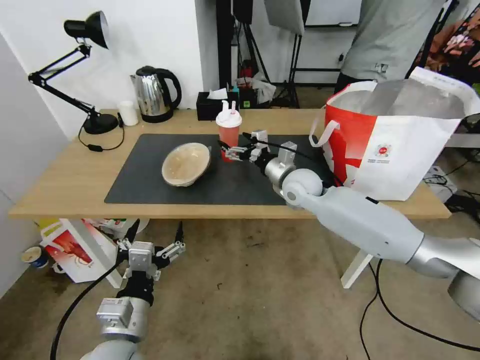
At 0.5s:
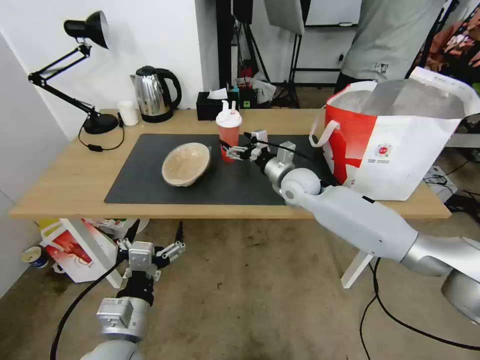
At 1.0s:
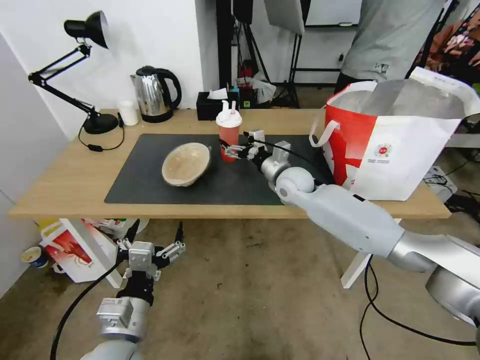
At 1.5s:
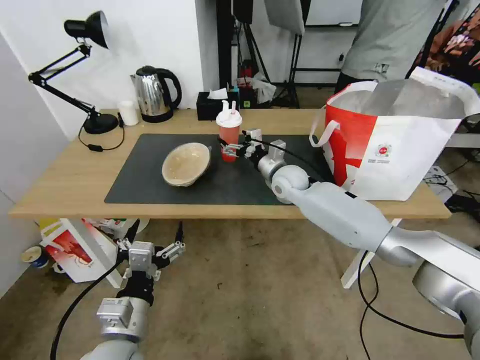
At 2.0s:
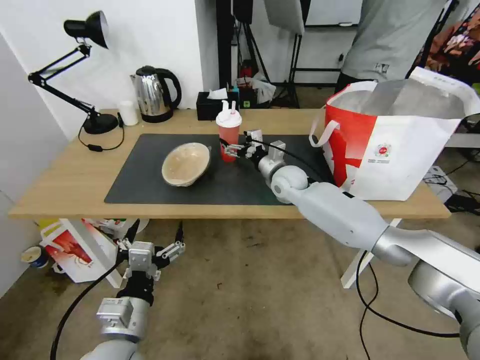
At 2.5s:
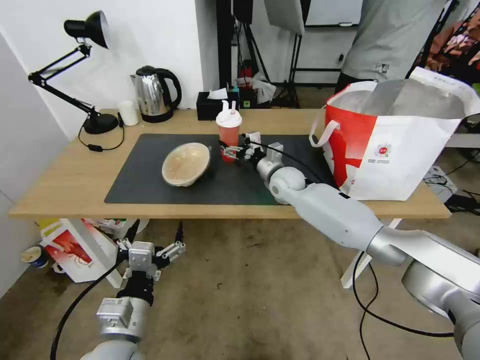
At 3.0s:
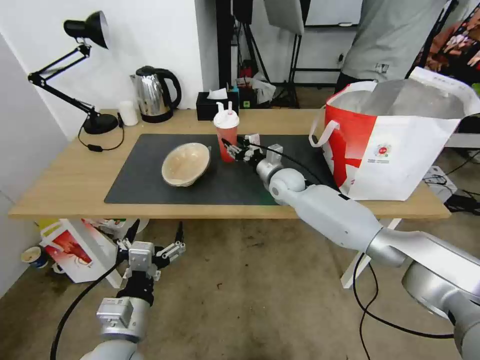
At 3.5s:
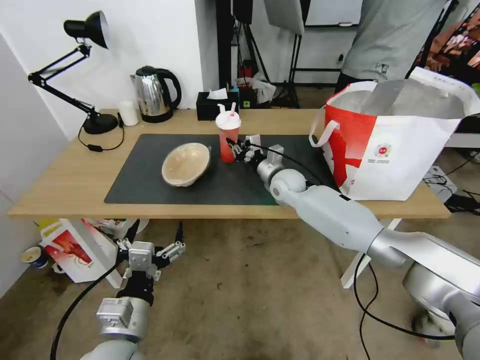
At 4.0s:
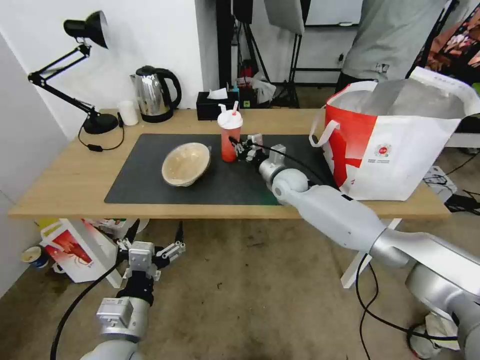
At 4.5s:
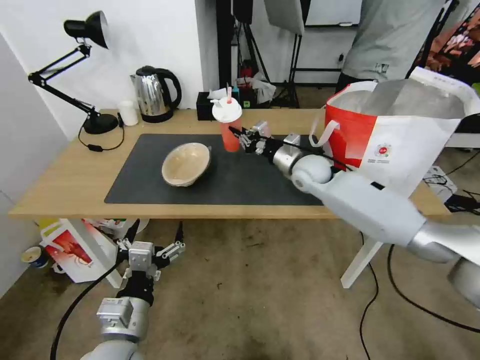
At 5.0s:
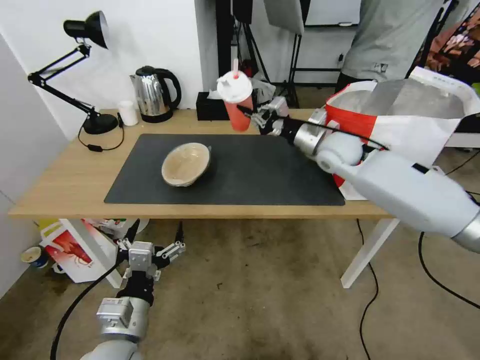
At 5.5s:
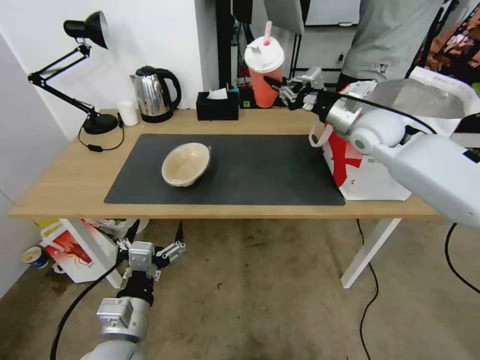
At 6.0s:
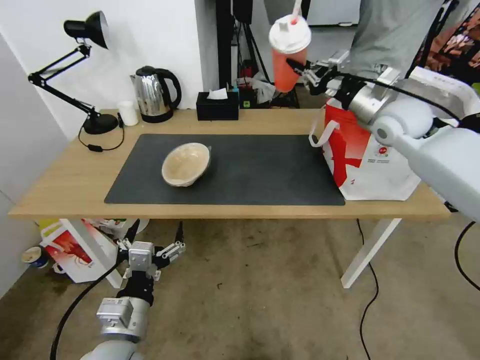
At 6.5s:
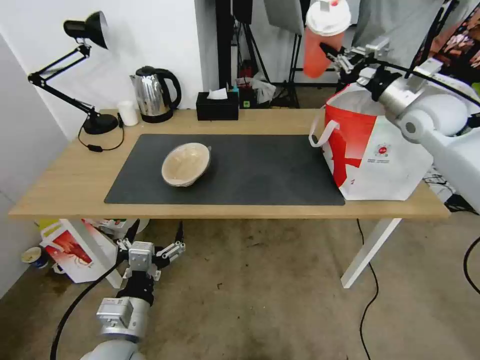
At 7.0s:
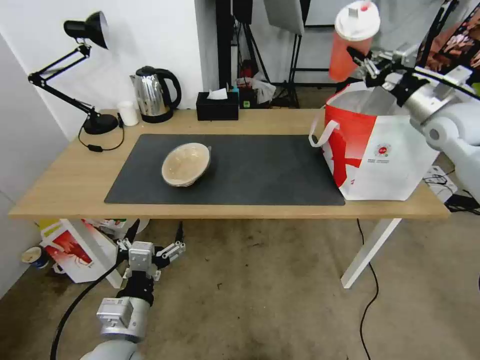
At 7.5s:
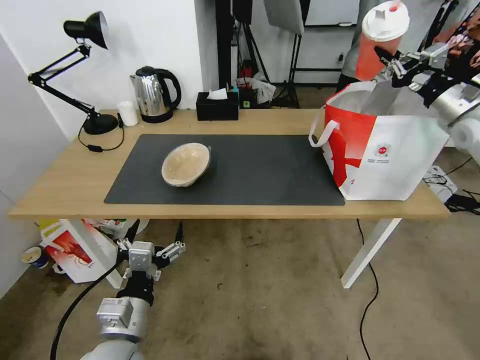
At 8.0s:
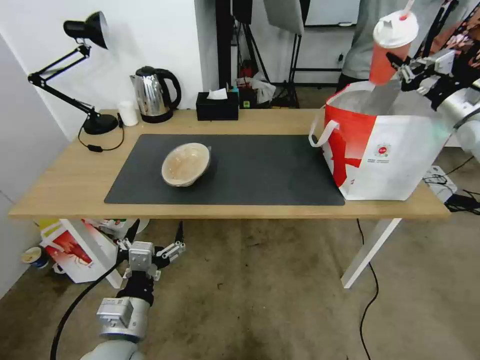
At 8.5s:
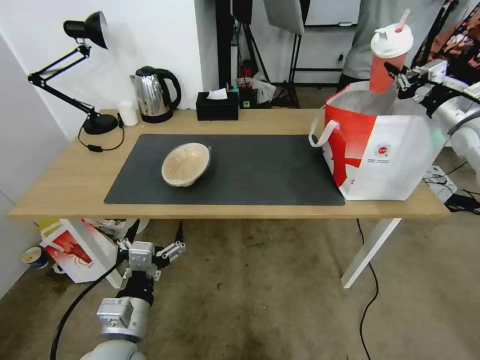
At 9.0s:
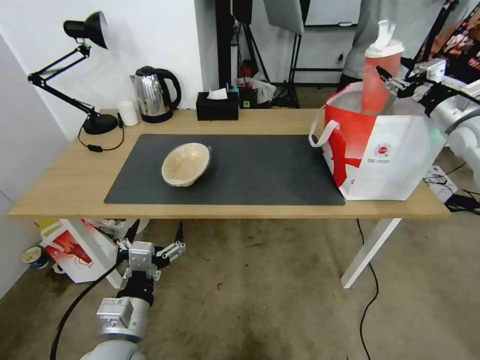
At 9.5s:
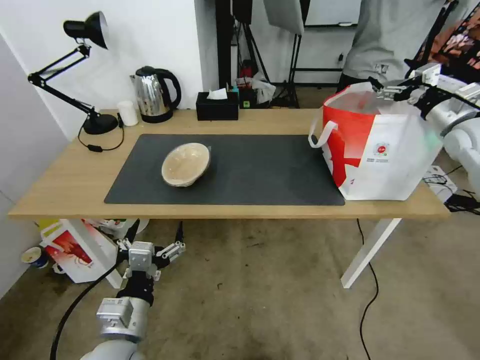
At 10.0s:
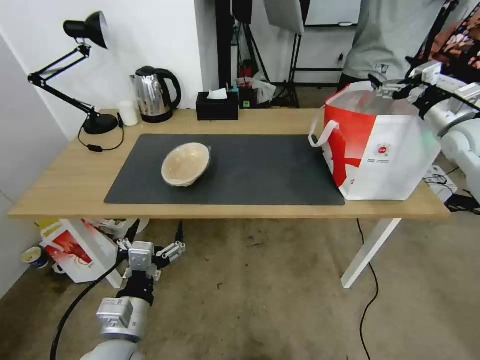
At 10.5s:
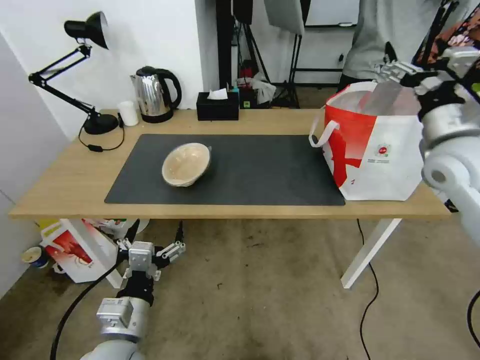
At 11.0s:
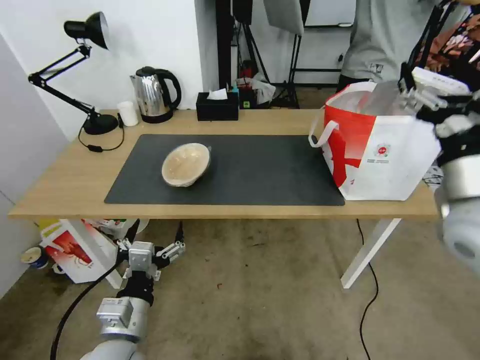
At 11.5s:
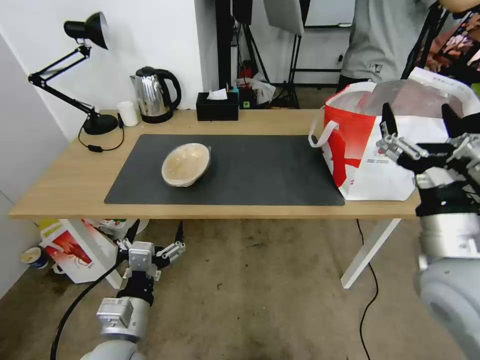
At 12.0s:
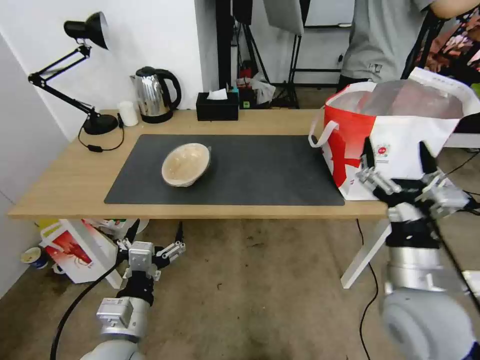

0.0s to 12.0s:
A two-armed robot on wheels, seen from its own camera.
Task of the whole recording: Pick up the trash from the table and place it into the takeout bag.
0.0s to 2.0s: The right gripper shifts by roughly 5 cm.
2.0s to 4.0s: The right gripper closes up.
4.0s to 6.0s: The right gripper shifts some 30 cm upward and to the right.
6.0s to 8.0s: The right gripper travels to the right by about 20 cm.
8.0s to 10.0s: The right gripper opens up.
10.0s to 12.0s: The right gripper goes roughly 40 cm backward and to the left.

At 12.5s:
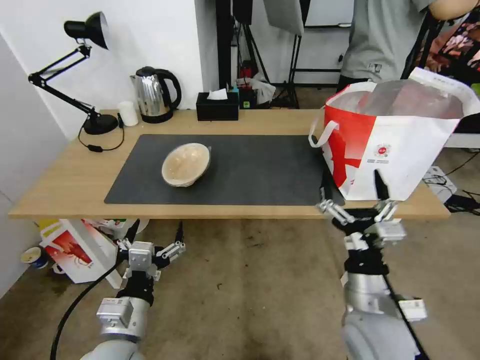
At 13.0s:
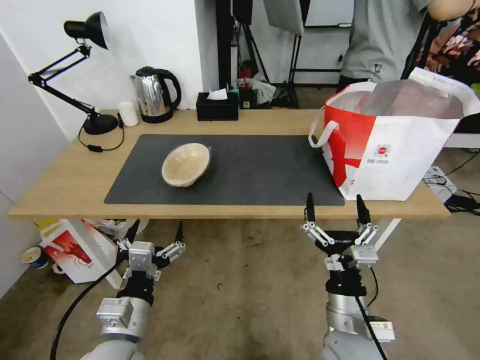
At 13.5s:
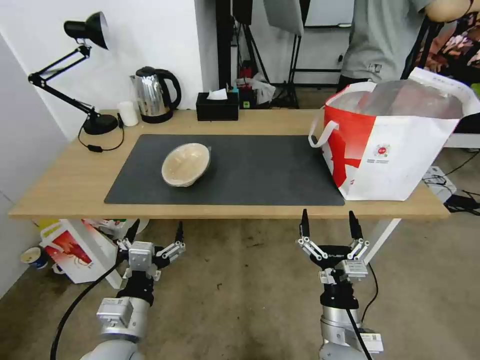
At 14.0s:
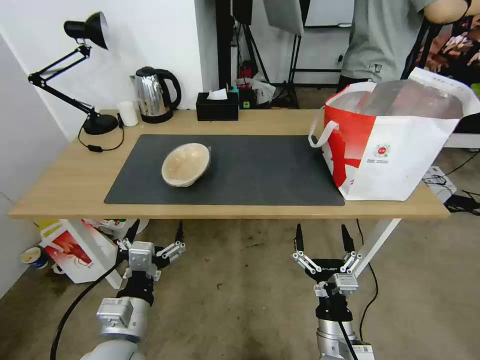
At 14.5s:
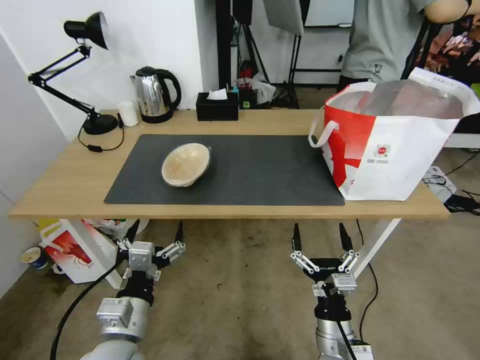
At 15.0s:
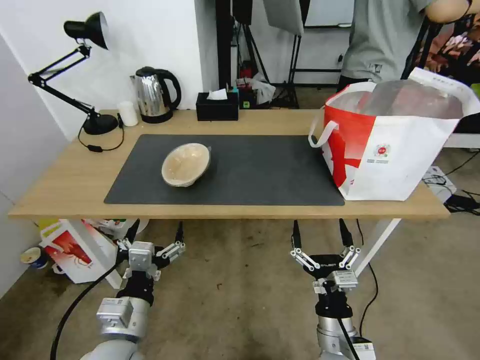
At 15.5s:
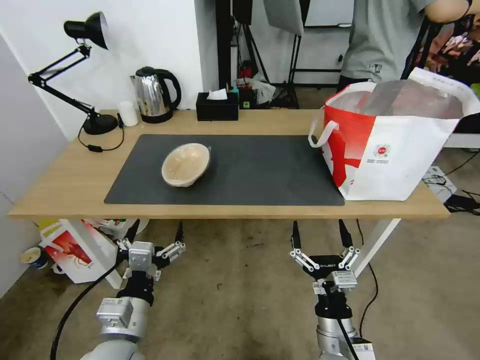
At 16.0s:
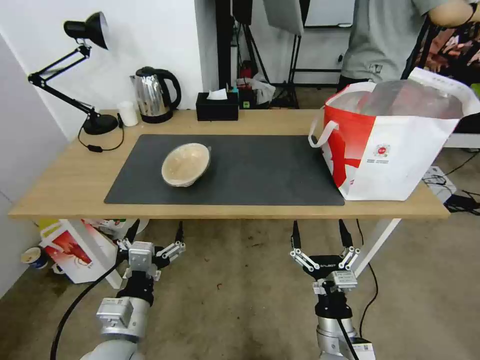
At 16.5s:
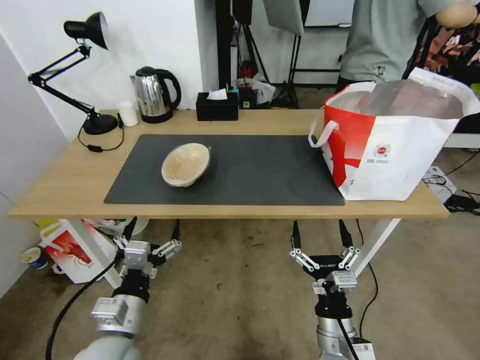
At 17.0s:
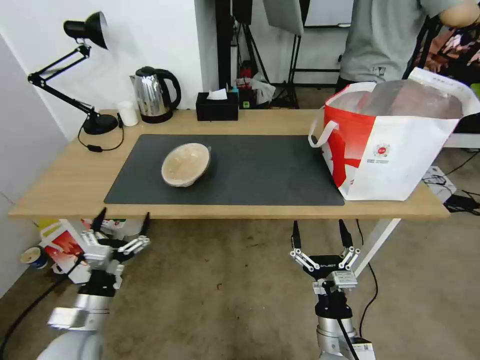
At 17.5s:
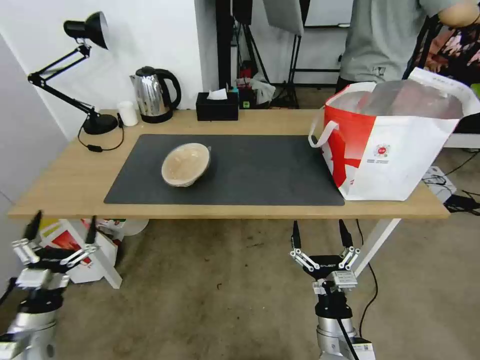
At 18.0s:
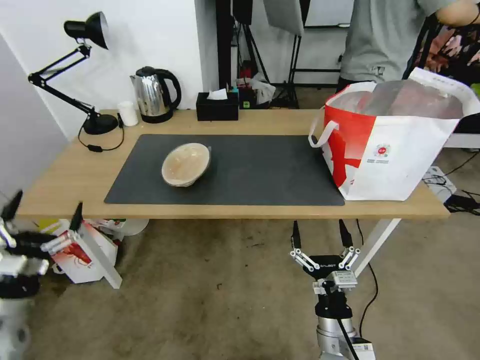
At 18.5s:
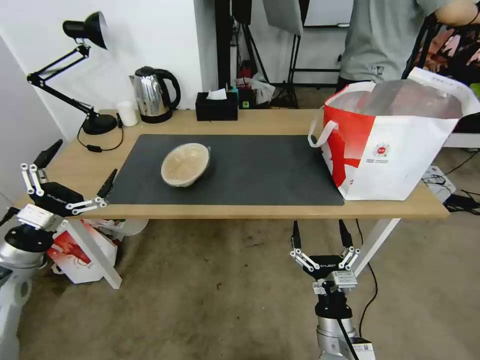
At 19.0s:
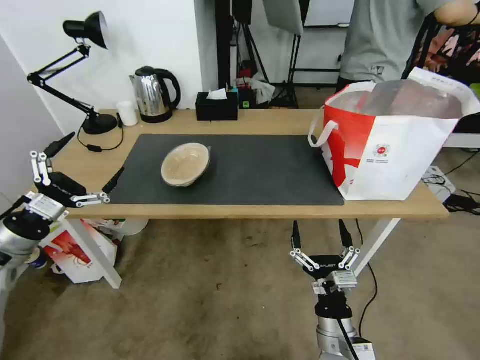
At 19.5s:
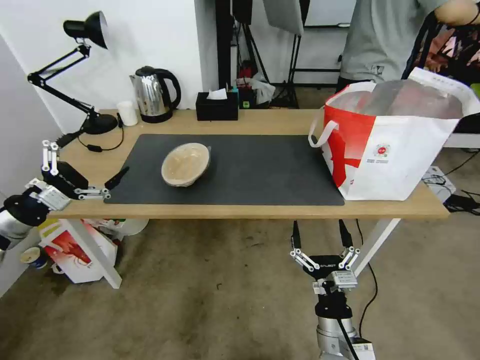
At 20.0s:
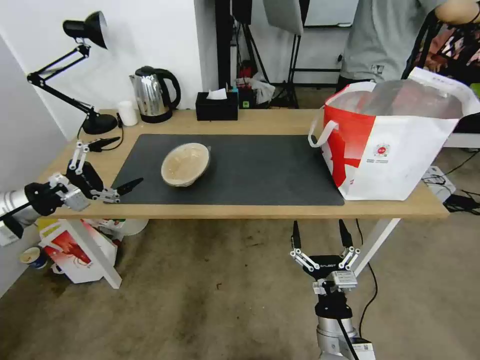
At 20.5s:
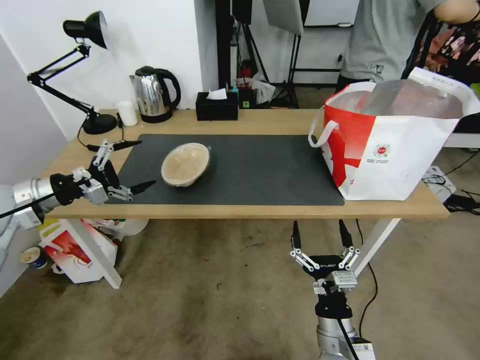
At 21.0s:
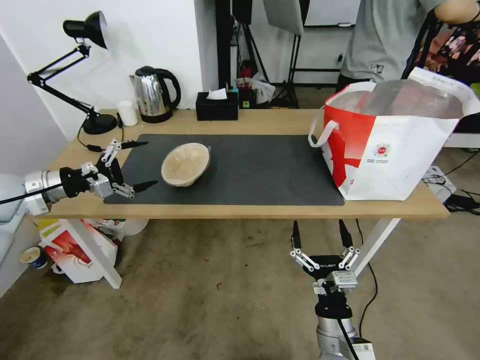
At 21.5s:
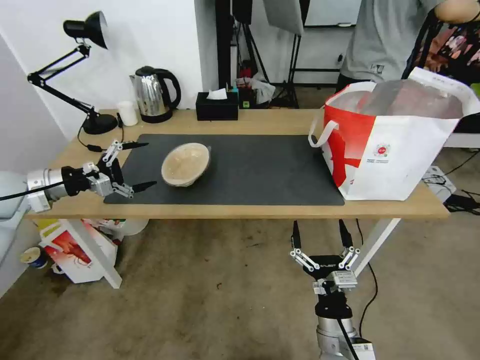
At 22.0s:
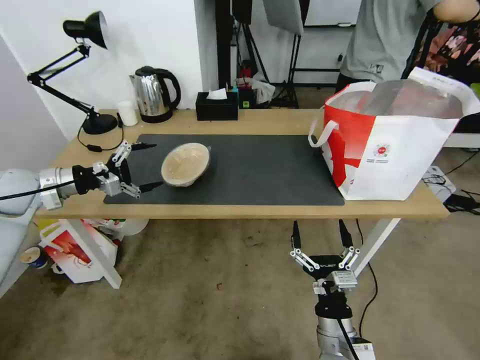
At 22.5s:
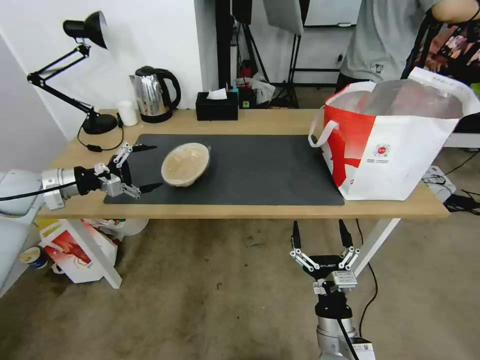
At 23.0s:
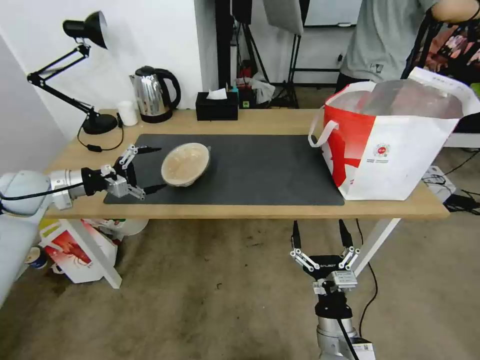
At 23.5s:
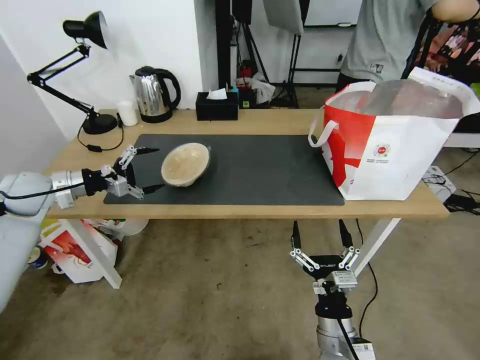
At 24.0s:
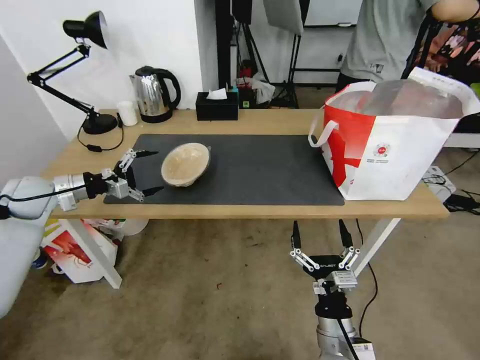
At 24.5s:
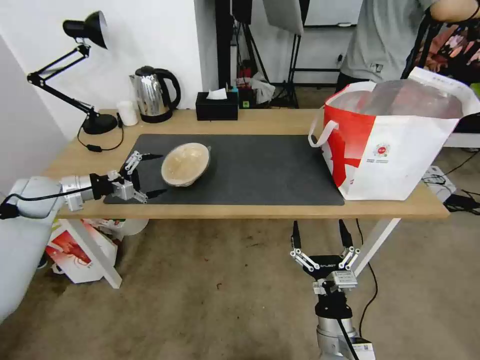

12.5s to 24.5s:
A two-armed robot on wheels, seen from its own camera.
Task of the whole recording: Pick up the trash from the table and place it into the takeout bag.
12.5s to 14.5s: The right gripper shifts roughly 10 cm downward and backward.
14.5s to 16.5s: There are only small adjustments of the grippers.
16.5s to 18.5s: The left gripper moves to the left and forward, about 25 cm.
18.5s to 20.5s: The left gripper shifts roughly 15 cm forward and upward.
20.5s to 22.5s: The left gripper is displaced forward by approximately 5 cm.
22.5s to 24.5s: The grippers stay close to where they were, moving slightly.

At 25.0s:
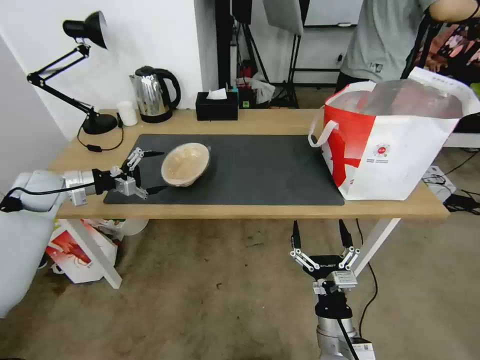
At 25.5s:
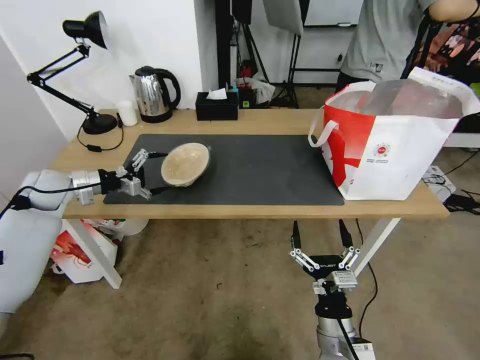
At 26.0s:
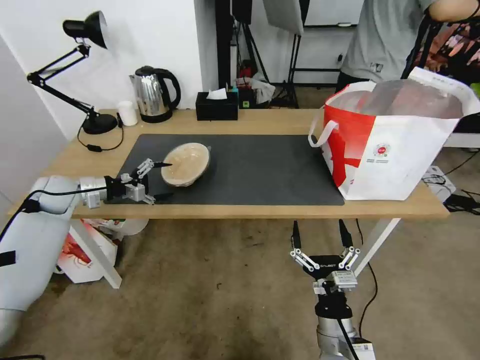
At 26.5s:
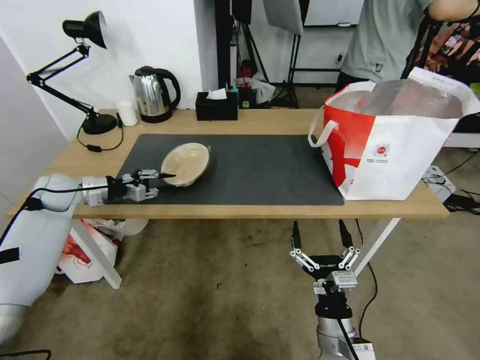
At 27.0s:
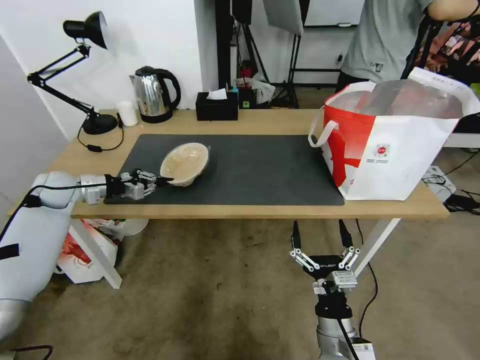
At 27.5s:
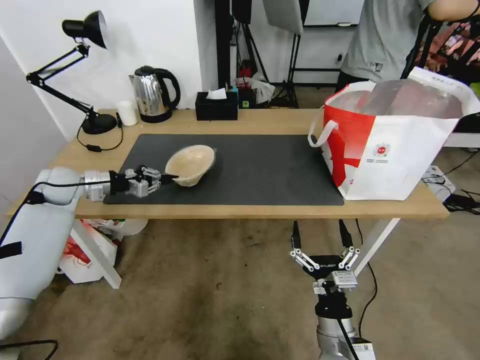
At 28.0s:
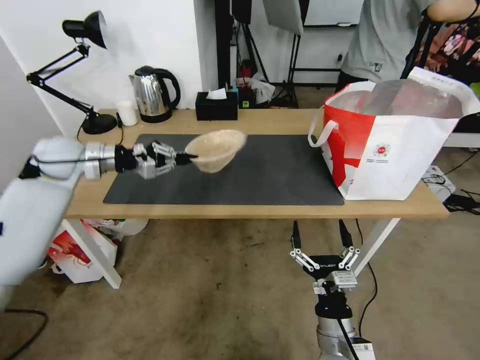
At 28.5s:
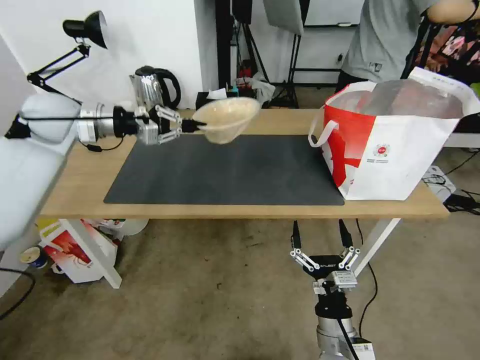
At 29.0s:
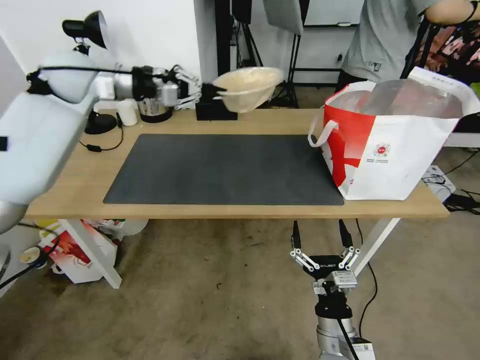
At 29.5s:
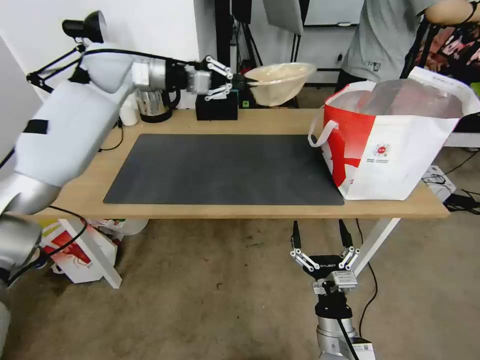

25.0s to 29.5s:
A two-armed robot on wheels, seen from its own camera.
Task of the whole recording: Pick up the trash from the table and place it into the takeout bag.
25.0s to 27.0s: The left gripper closes.
27.0s to 29.5s: The left gripper shifts about 35 cm upward, to the right and forward.
